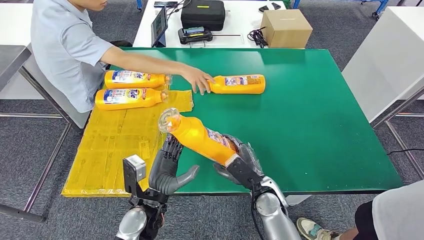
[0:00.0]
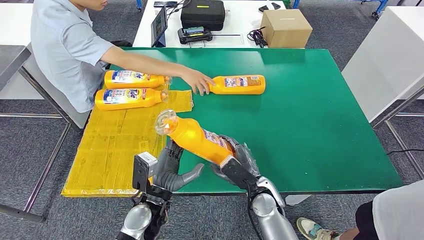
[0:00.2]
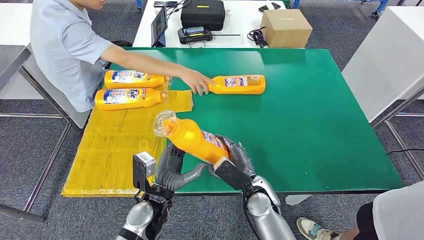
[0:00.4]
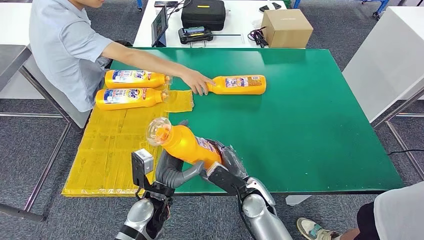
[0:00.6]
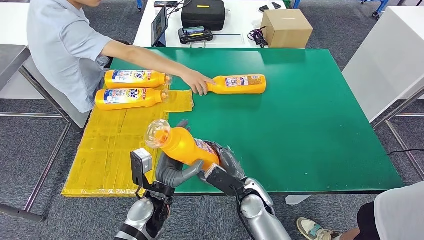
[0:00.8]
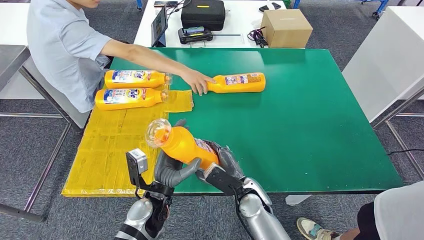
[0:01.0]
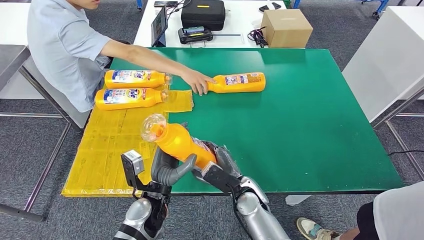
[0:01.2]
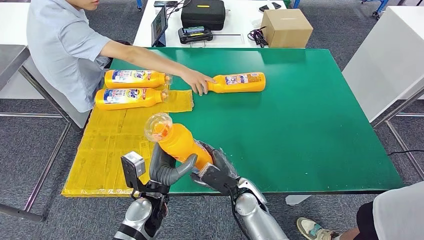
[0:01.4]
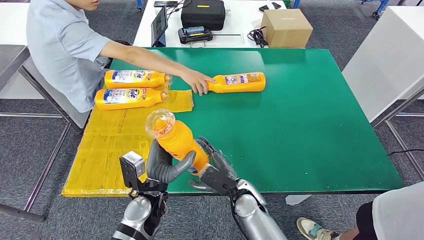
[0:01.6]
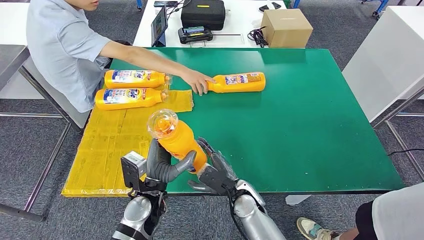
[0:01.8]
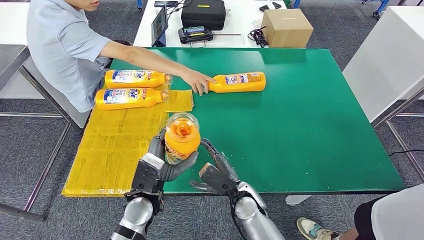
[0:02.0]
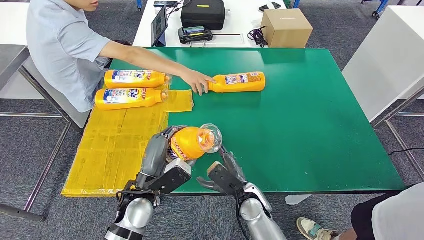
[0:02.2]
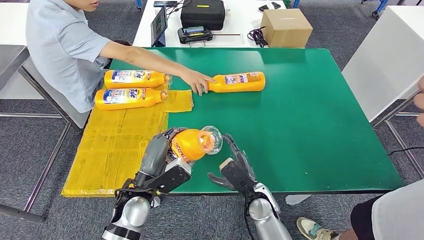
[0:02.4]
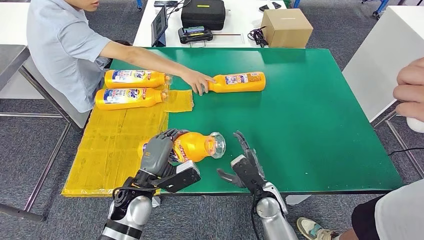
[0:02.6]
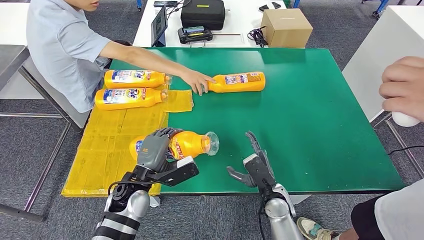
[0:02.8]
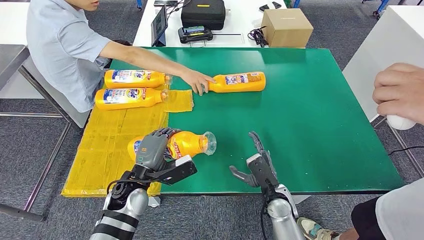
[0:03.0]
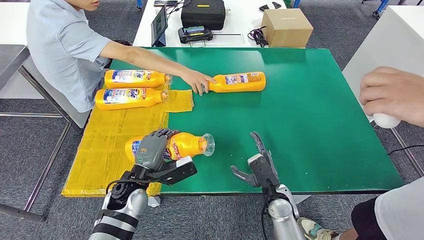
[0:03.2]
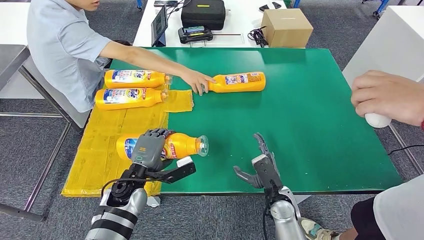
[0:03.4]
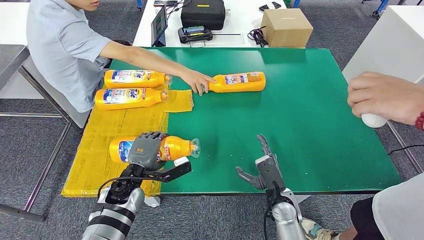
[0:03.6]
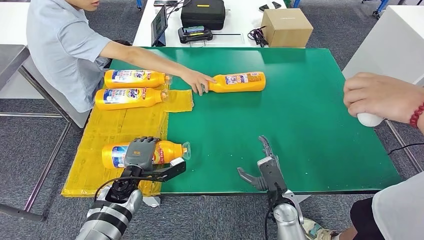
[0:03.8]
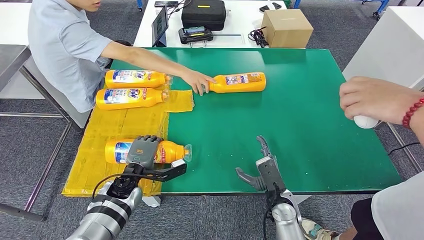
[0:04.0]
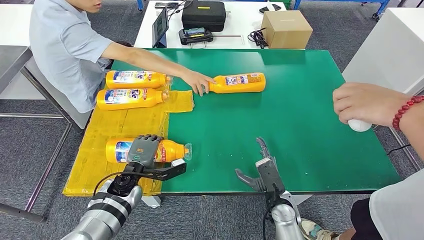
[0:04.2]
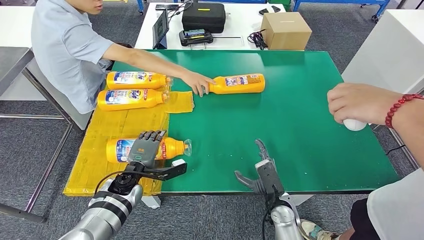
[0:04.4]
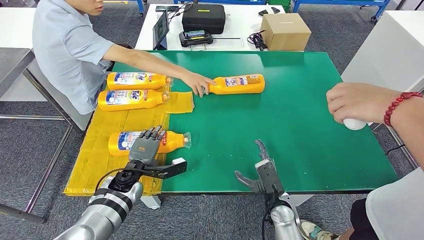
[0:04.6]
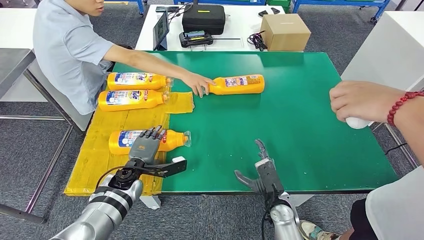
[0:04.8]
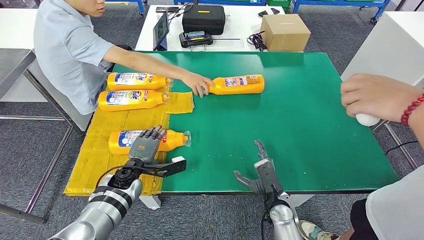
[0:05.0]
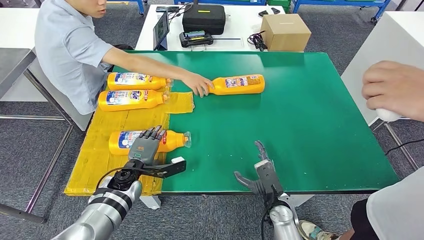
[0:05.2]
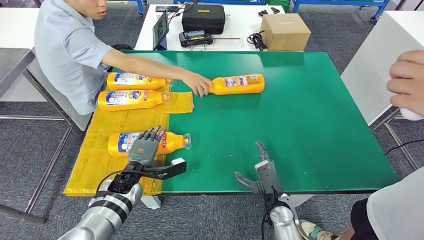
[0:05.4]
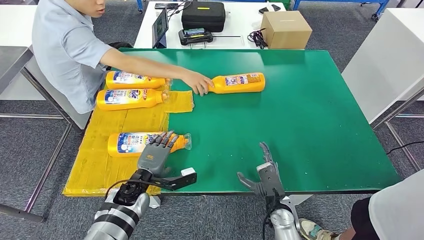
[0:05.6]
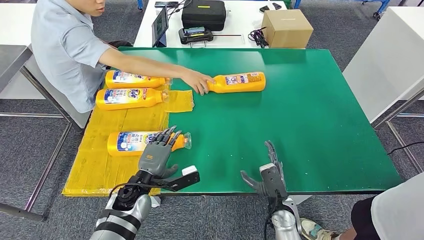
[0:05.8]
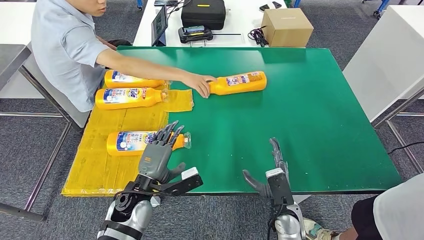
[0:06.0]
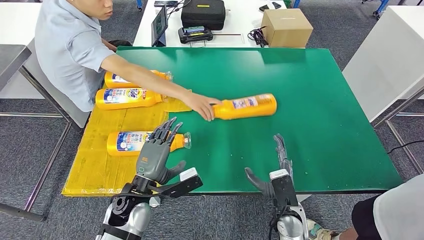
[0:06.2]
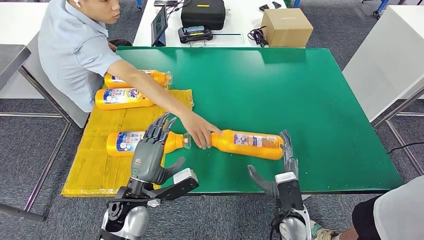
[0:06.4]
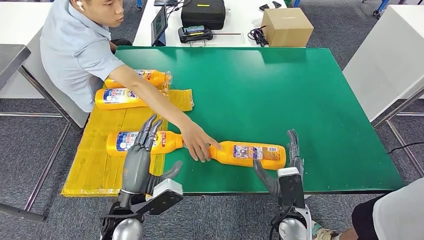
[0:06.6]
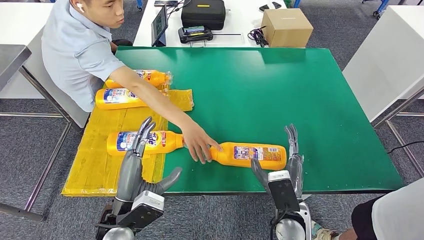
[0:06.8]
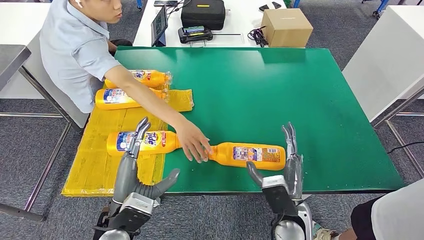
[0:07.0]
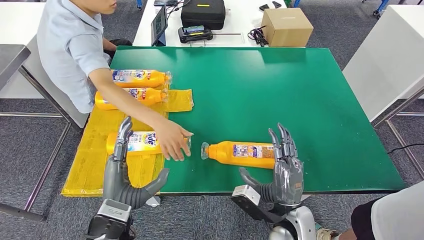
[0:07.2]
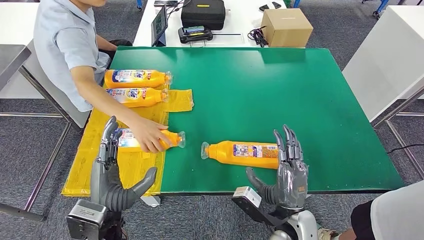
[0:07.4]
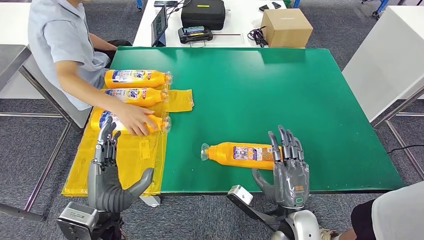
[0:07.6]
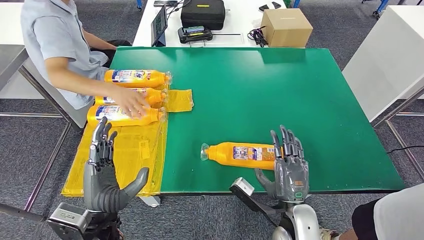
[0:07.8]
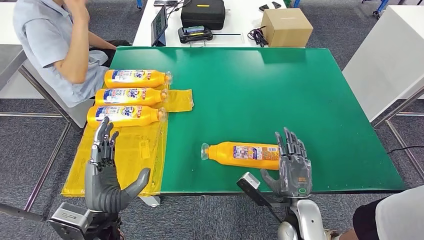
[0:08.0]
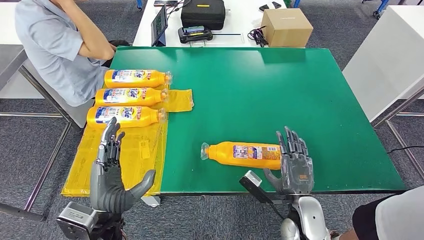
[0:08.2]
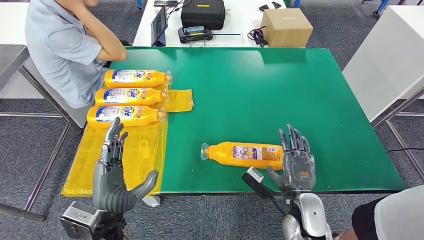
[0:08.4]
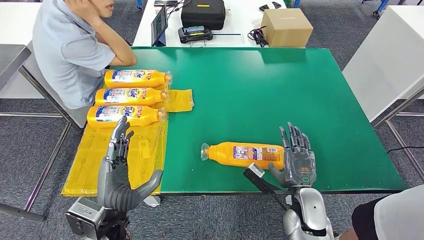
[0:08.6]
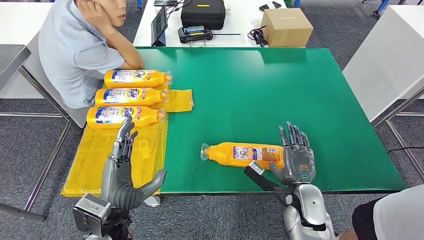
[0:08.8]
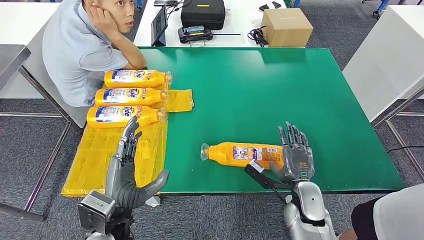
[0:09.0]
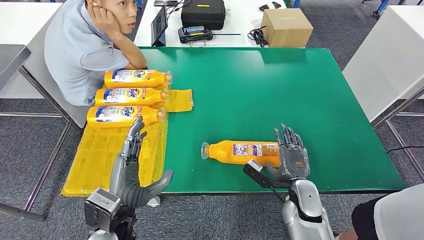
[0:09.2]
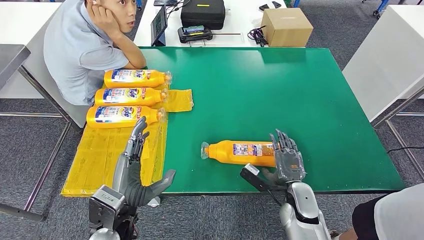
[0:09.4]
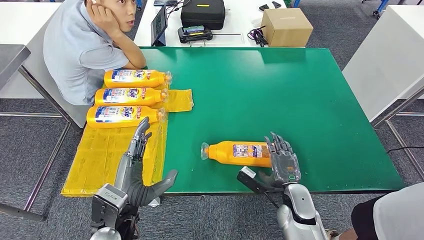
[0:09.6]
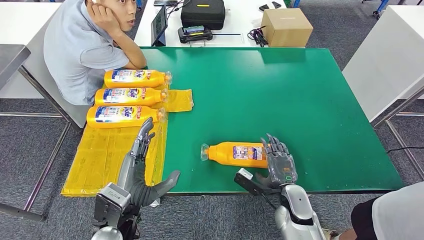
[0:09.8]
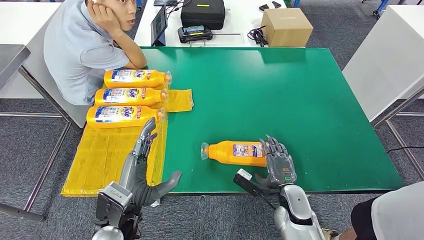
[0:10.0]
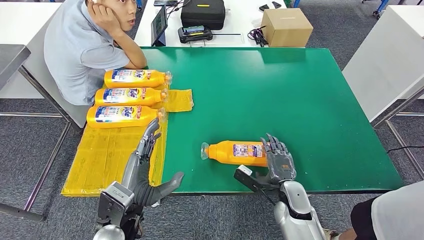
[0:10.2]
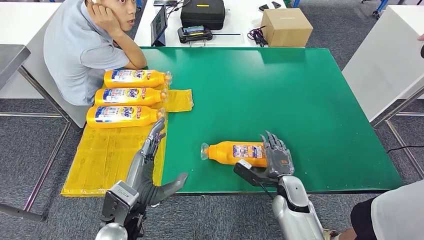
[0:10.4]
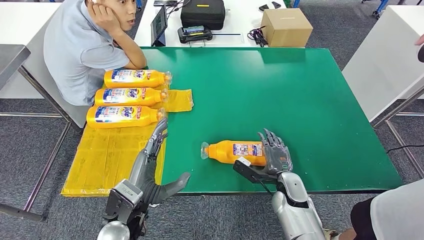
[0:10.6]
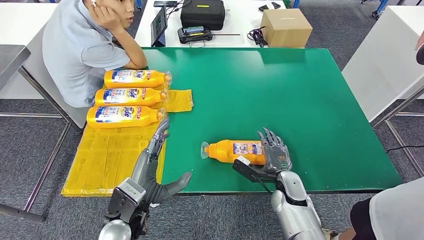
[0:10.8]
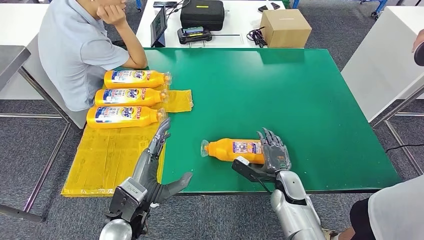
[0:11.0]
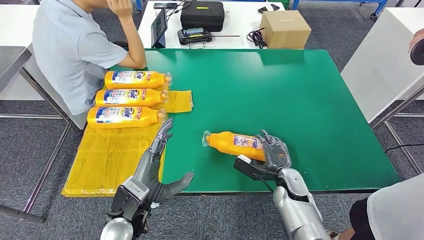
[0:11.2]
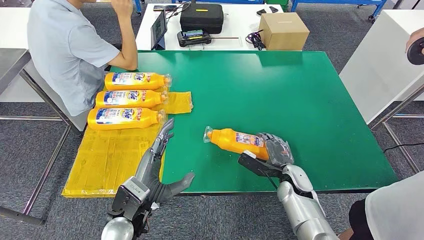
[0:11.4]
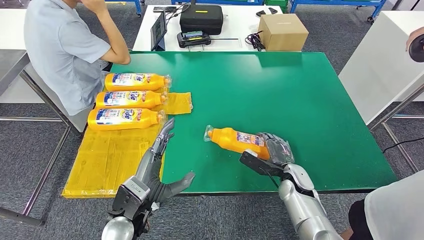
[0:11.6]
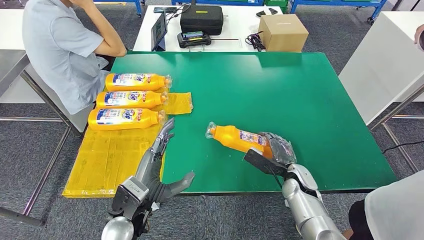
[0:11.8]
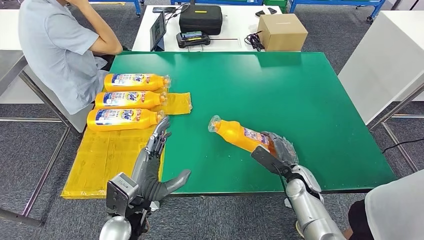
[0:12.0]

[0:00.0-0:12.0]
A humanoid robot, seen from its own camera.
Step, 0:00.0 to 0:04.2: Flip the fast-moving consumer goods bottle to the front side.
0:00.0 to 0:01.6: The right hand moves to the left, roughly 5 cm.
0:01.6 to 0:03.0: The left hand shifts by roughly 5 cm. The right hand moves to the right, roughly 10 cm.
0:07.6 to 0:09.0: The right hand heads forward, to the right and downward, covering about 10 cm.
0:09.0 to 0:10.4: The right hand ends up about 5 cm from where it was.

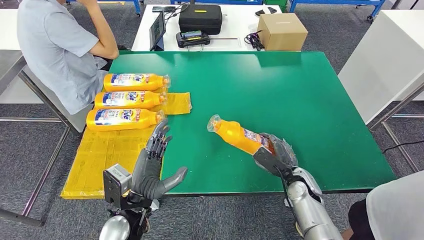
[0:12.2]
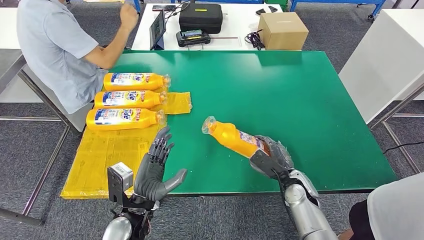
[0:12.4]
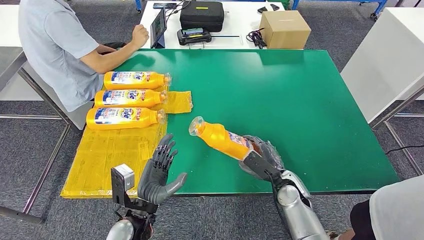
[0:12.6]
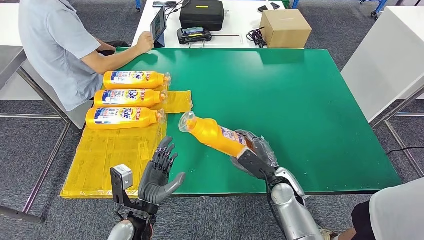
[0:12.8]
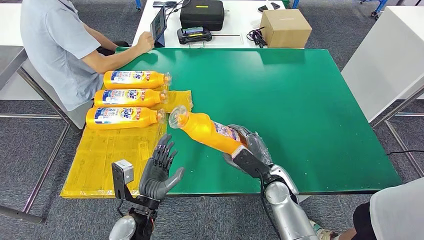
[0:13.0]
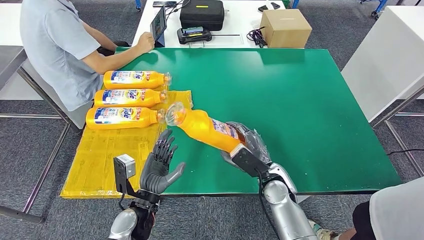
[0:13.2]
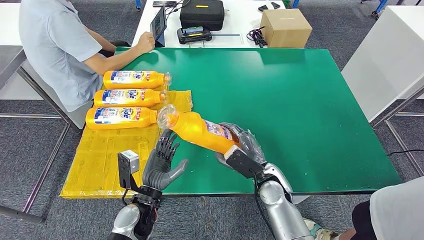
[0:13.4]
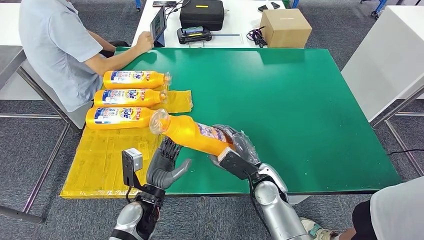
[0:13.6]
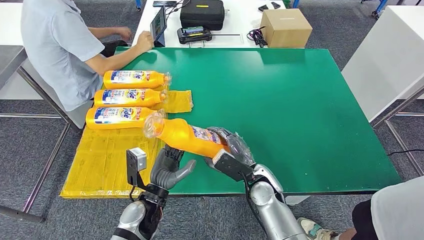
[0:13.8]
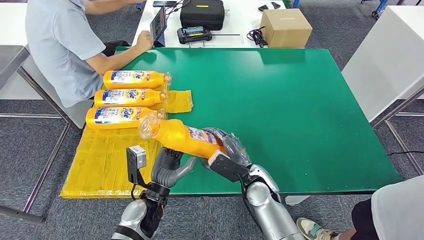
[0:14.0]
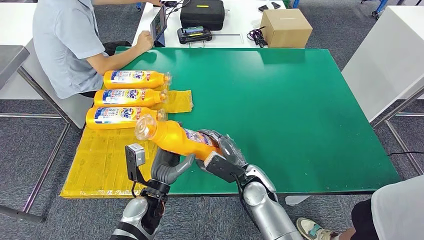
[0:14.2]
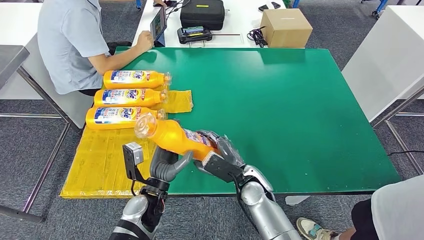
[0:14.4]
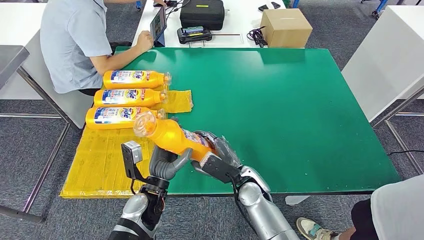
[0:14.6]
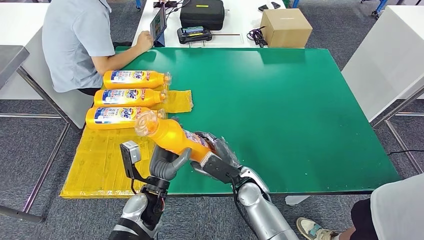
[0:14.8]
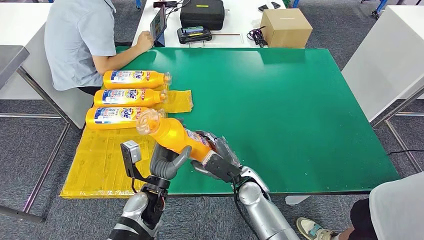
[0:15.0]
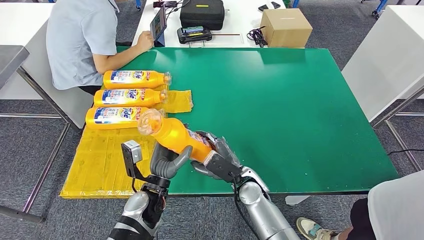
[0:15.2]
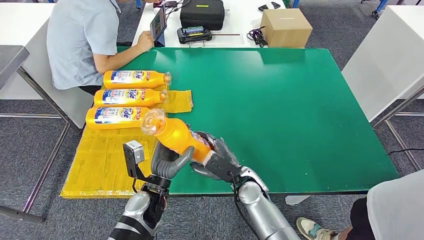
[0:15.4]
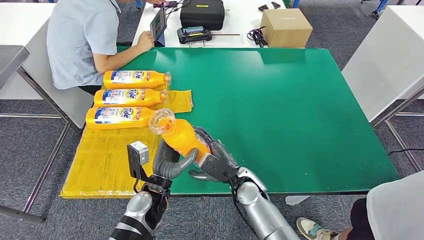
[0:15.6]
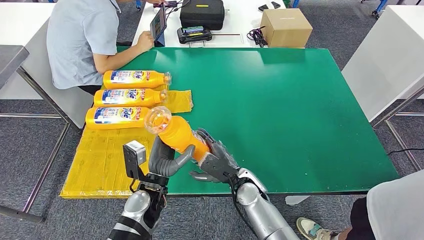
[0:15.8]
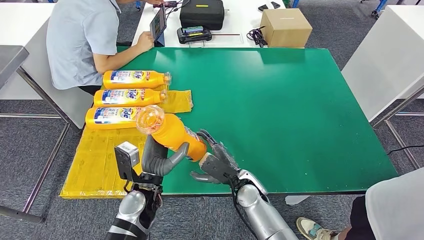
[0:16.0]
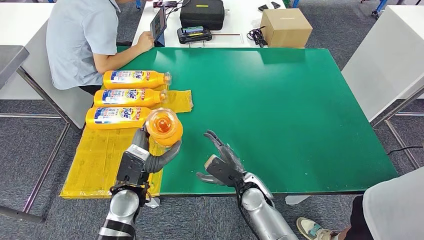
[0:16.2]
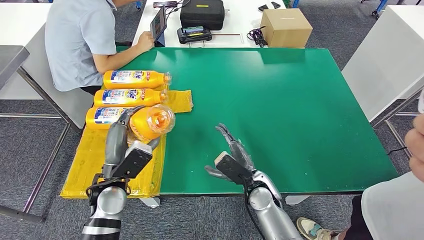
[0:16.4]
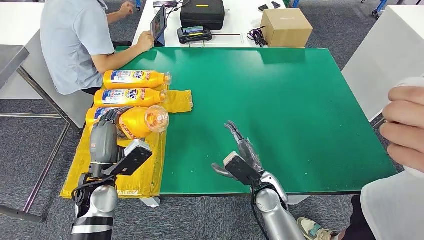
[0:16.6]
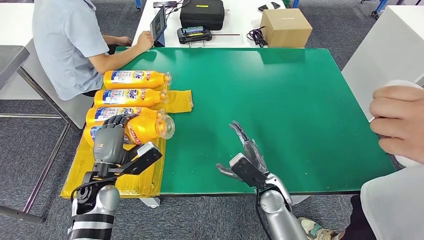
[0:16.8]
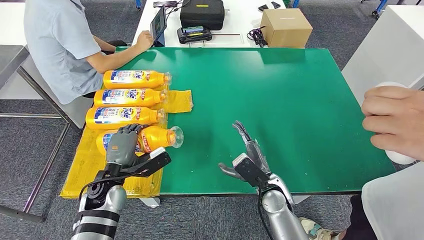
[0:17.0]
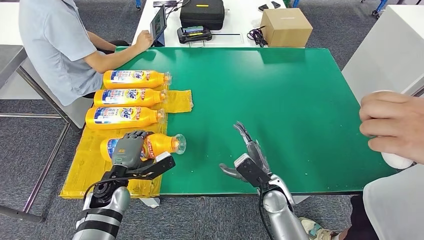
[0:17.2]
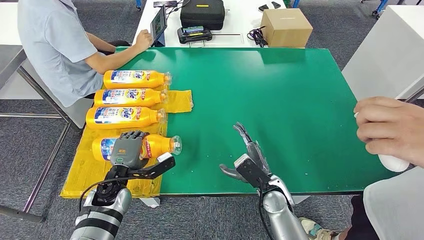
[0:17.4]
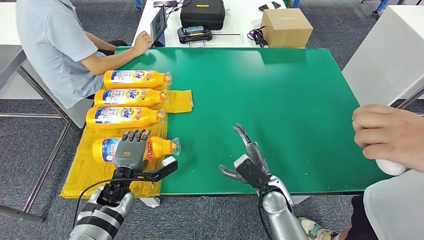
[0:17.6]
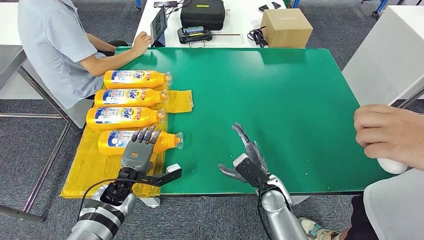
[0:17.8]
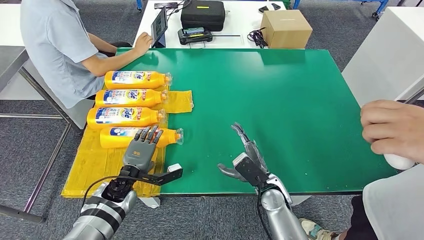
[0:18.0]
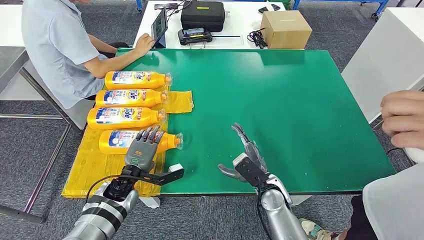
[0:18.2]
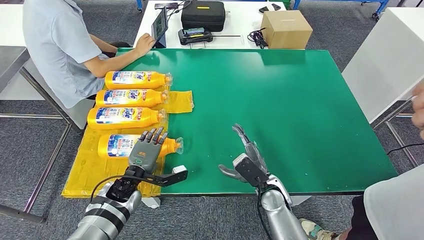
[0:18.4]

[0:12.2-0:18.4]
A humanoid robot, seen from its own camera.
Step, 0:13.6 to 0:18.4: Flip the fast-moving consumer goods bottle to the front side.
0:13.8 to 0:15.4: The hands make only small movements.
